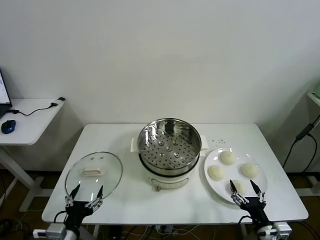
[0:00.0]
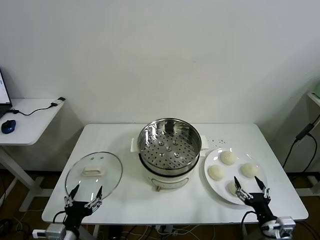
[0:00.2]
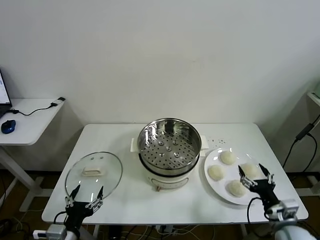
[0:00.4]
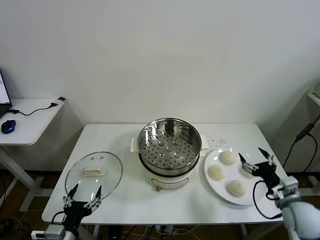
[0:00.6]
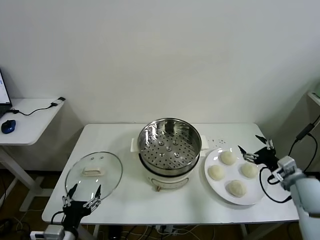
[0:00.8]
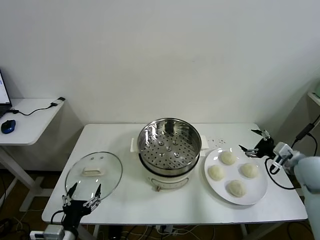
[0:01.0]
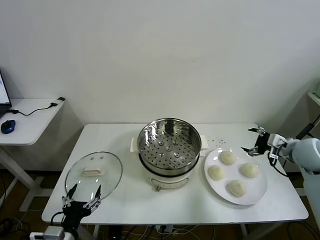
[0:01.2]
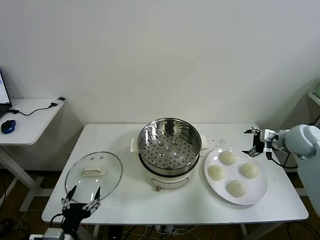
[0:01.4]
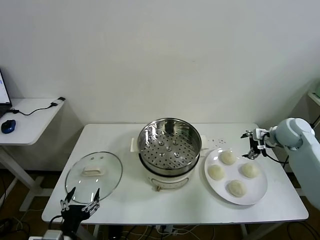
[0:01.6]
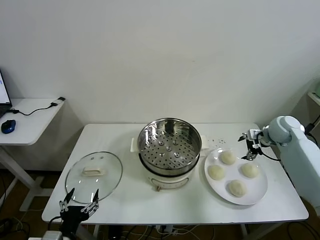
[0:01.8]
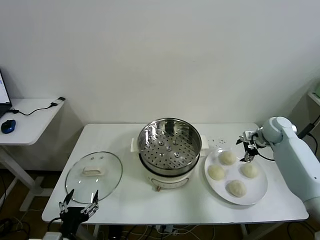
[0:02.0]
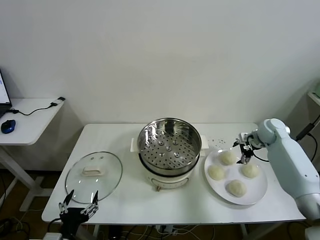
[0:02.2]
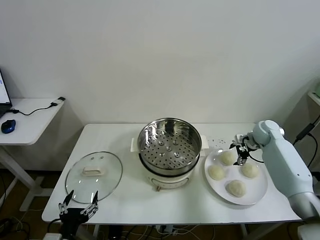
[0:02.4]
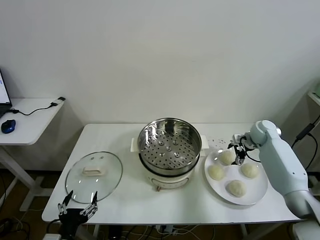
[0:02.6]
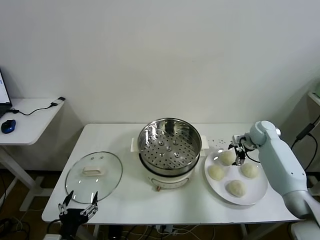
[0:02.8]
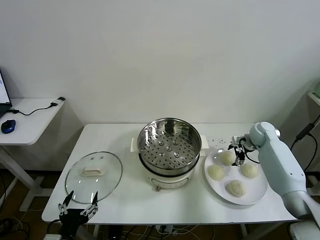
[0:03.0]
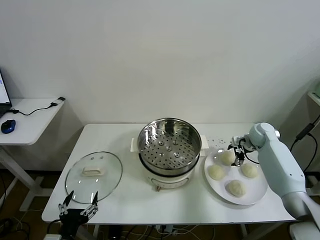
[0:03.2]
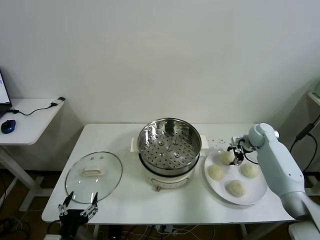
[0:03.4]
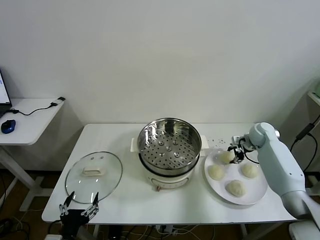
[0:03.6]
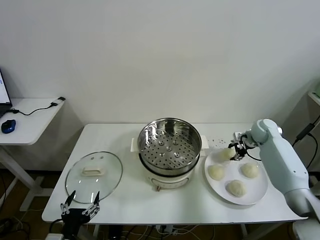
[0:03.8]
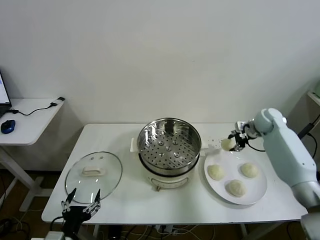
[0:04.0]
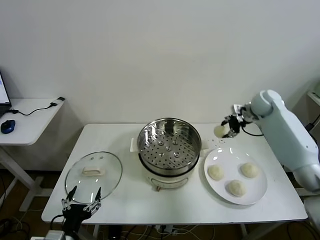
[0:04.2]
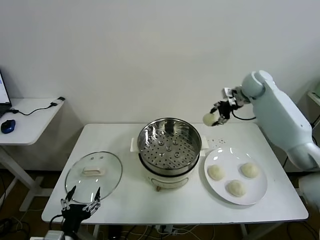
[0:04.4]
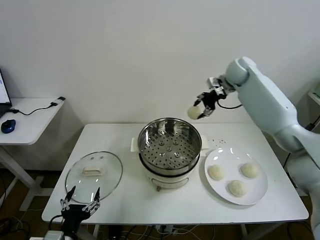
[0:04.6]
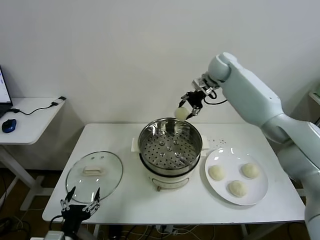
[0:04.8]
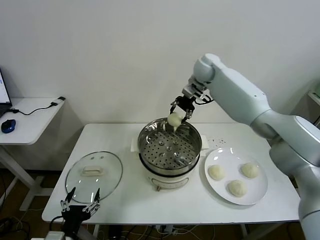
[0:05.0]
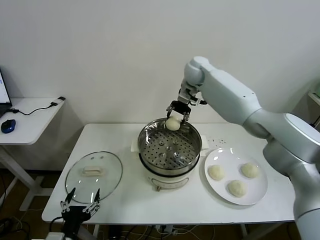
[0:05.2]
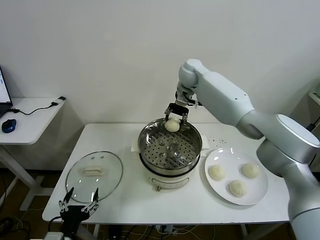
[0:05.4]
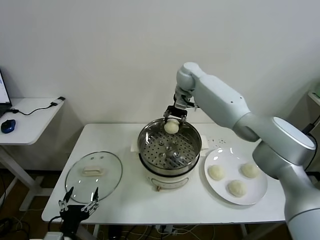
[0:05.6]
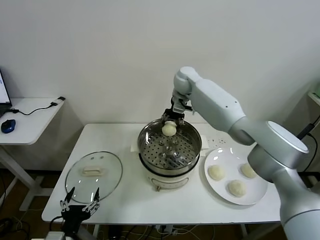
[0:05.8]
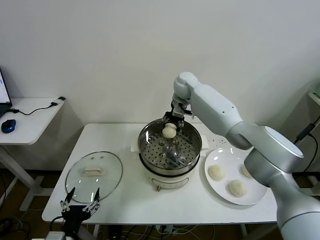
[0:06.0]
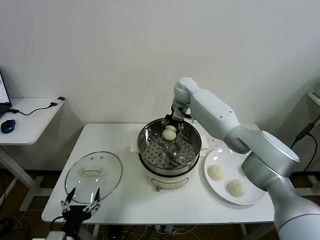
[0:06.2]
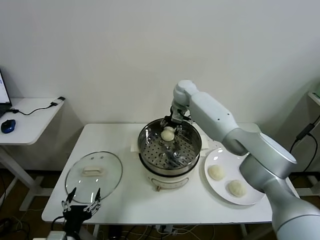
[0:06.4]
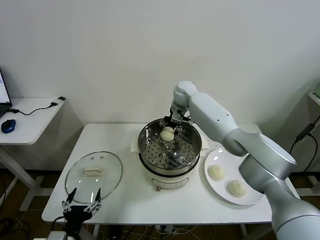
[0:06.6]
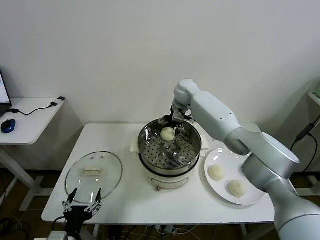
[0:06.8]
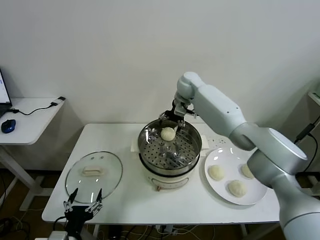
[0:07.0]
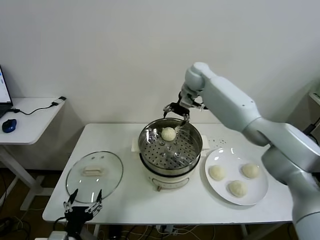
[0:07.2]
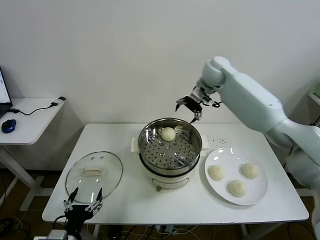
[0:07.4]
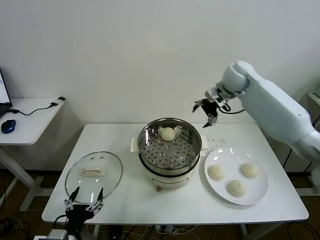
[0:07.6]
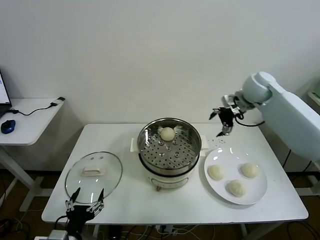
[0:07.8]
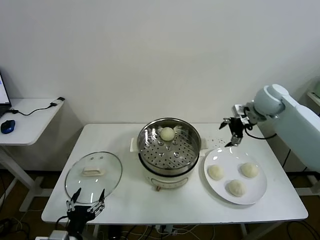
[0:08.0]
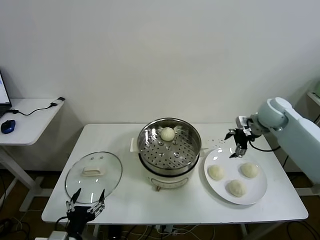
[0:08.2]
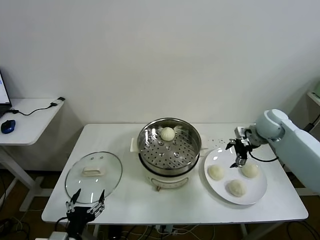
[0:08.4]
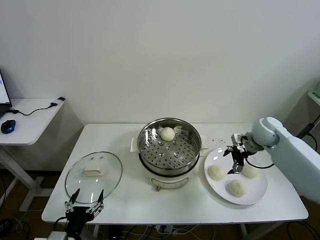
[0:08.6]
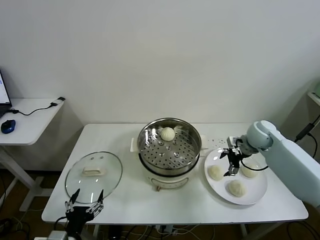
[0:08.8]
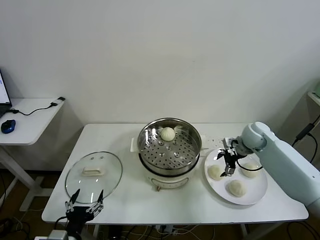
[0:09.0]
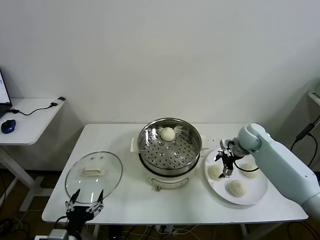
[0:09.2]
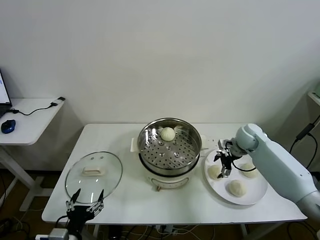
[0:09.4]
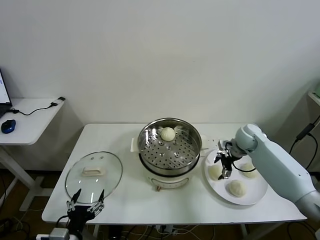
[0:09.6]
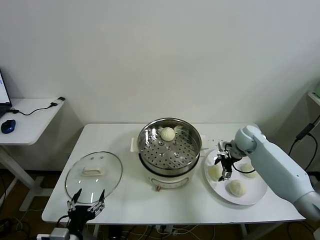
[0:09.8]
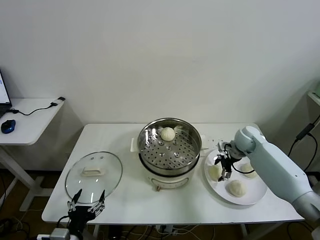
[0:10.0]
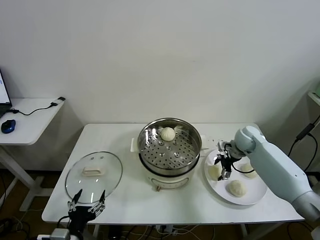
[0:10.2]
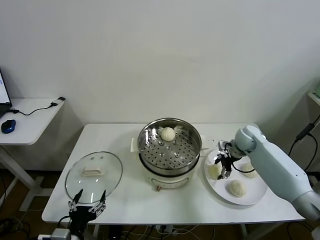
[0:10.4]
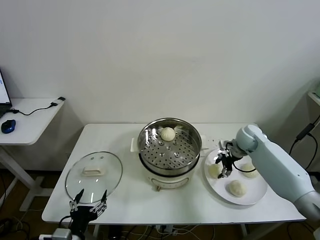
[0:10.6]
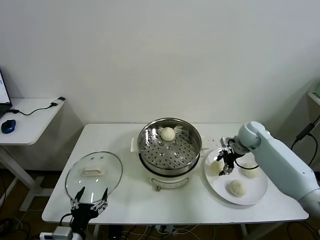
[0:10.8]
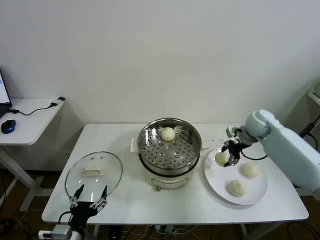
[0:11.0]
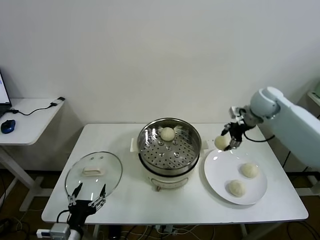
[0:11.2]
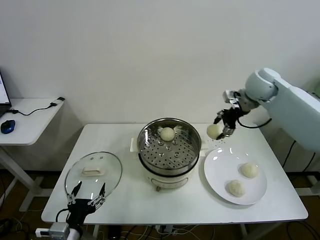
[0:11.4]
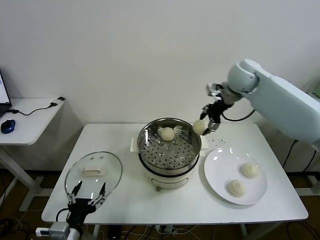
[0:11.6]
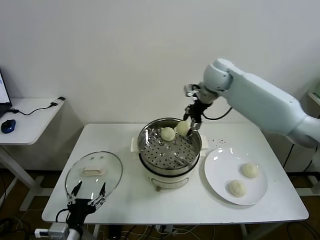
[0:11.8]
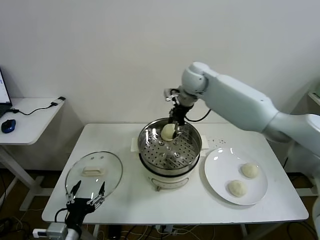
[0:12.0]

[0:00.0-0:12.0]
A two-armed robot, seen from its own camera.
Task of the whole recording: take steamed baozi put them in steamer then cover it.
Step, 0:00.0 to 0:03.4: Grasp the baozi in the plate with right gripper.
Step, 0:03.6 to 0:06.8: Place the baozi on the steamer with right gripper.
Step, 0:07.0 to 0:10.4: Grasp the baozi in the plate with right gripper.
0:01.6 to 0:03.0: The right gripper shifts roughly 10 cm downward and forward.
0:03.0 to 0:04.4: The right gripper travels upward and to the left by approximately 25 cm, and closes.
0:04.4 to 0:06.0: The right gripper shifts some 20 cm to the left.
0:06.0 to 0:07.6: The right gripper goes roughly 20 cm to the right, and opens its fingers.
0:07.6 to 0:09.0: The right gripper moves downward, approximately 20 cm.
0:09.0 to 0:10.4: The right gripper closes its fingers.
0:10.4 to 0:12.0: The right gripper heads to the left and upward, covering approximately 35 cm.

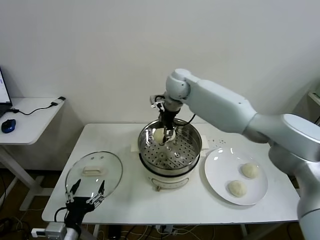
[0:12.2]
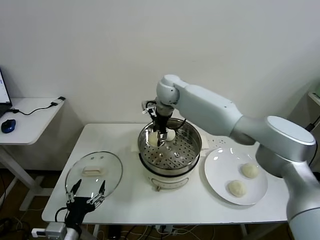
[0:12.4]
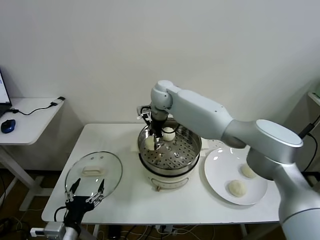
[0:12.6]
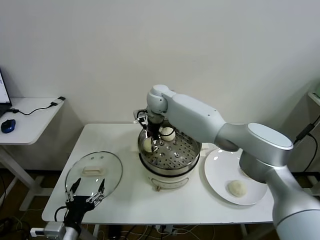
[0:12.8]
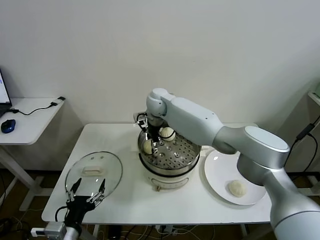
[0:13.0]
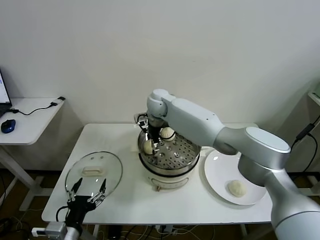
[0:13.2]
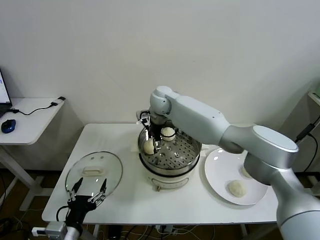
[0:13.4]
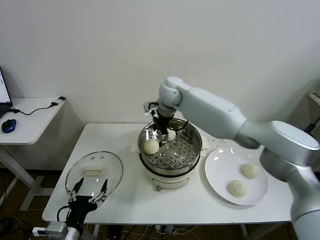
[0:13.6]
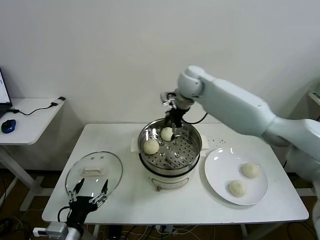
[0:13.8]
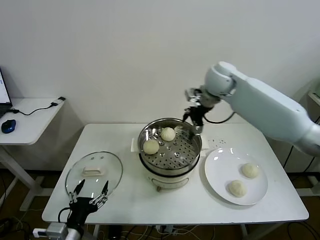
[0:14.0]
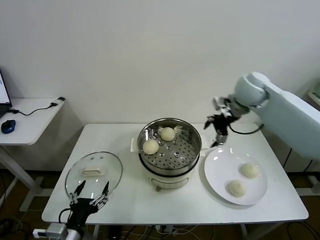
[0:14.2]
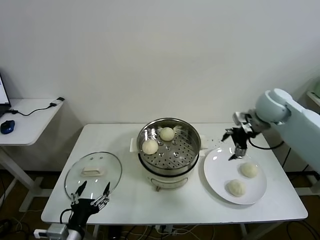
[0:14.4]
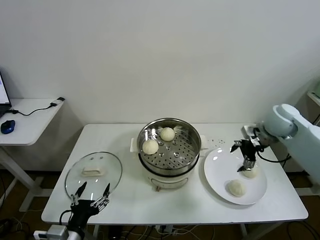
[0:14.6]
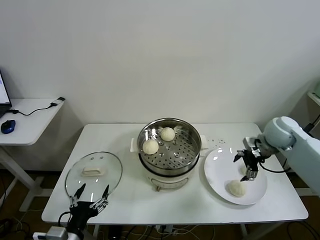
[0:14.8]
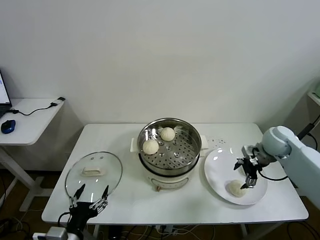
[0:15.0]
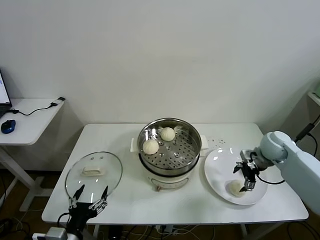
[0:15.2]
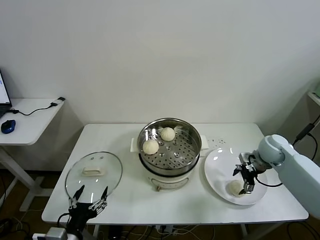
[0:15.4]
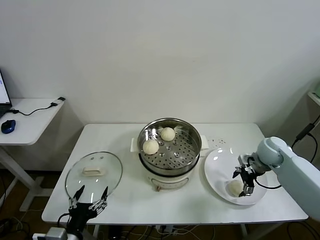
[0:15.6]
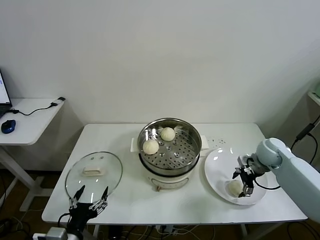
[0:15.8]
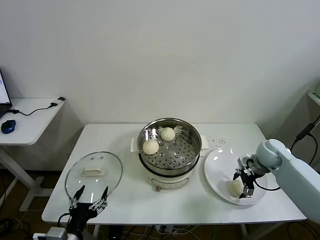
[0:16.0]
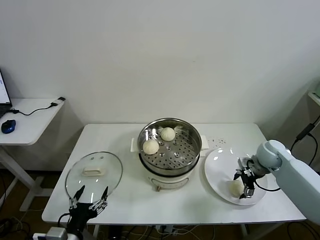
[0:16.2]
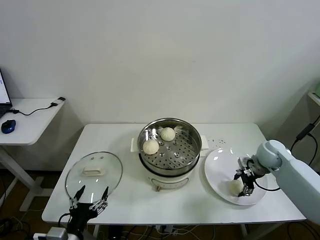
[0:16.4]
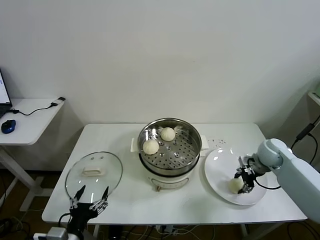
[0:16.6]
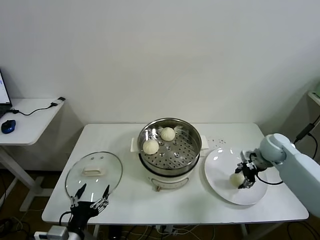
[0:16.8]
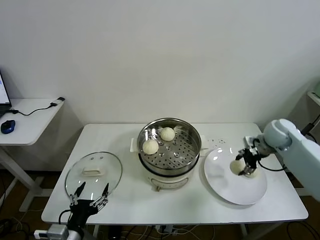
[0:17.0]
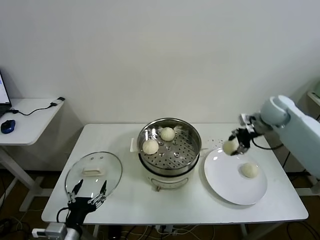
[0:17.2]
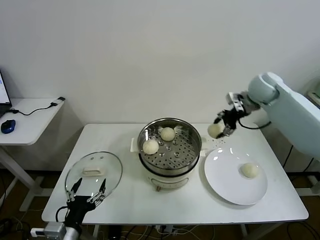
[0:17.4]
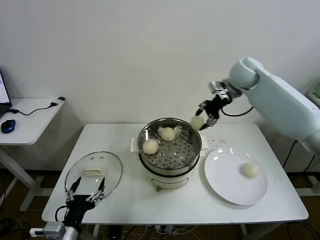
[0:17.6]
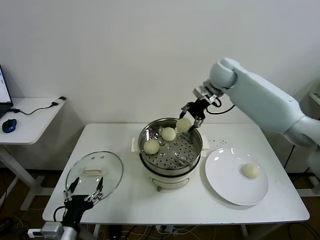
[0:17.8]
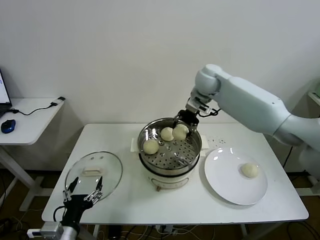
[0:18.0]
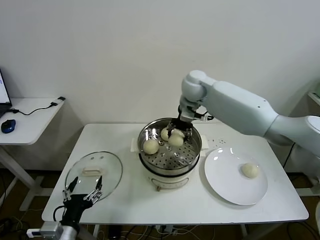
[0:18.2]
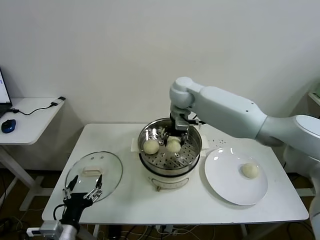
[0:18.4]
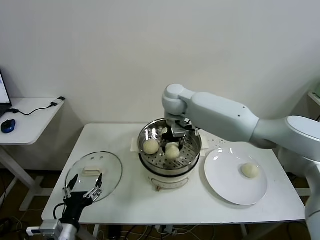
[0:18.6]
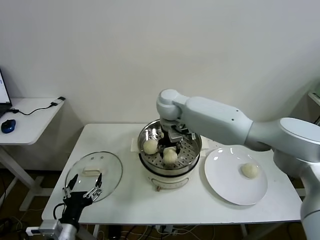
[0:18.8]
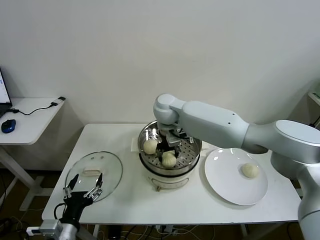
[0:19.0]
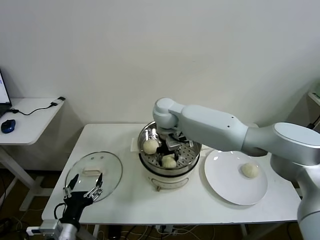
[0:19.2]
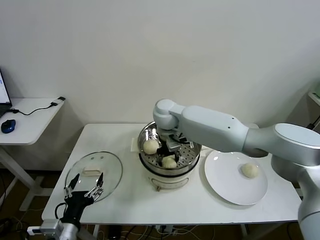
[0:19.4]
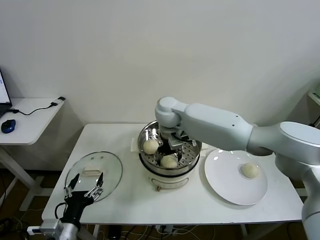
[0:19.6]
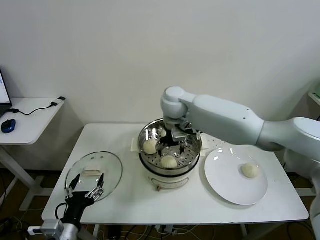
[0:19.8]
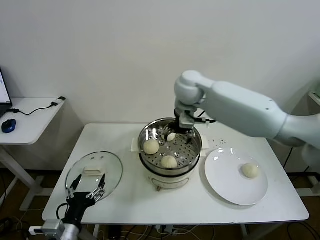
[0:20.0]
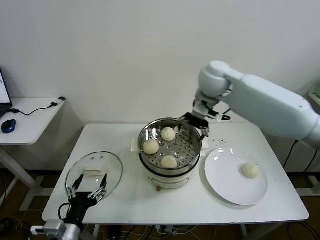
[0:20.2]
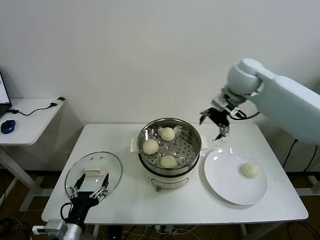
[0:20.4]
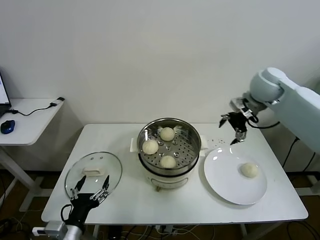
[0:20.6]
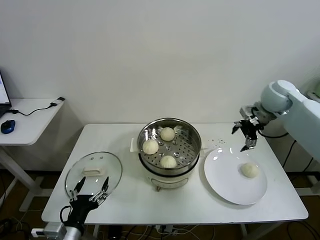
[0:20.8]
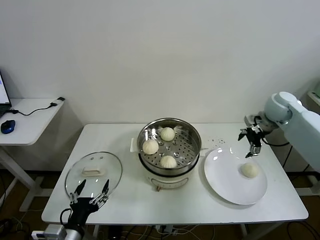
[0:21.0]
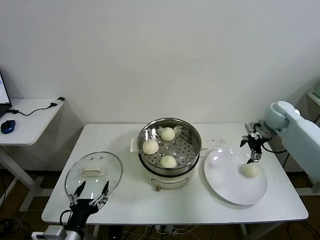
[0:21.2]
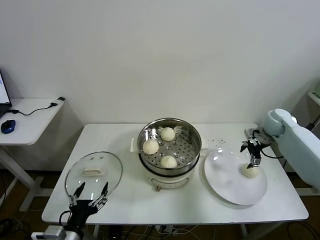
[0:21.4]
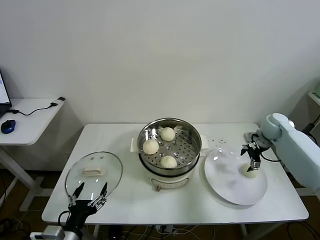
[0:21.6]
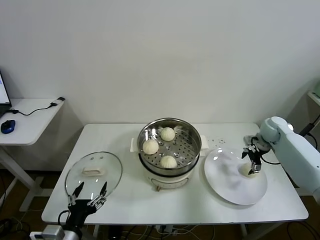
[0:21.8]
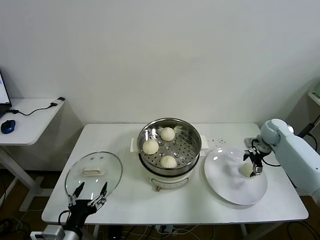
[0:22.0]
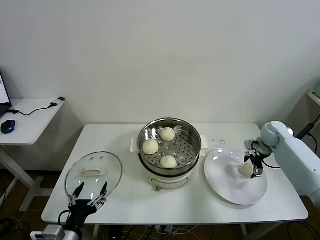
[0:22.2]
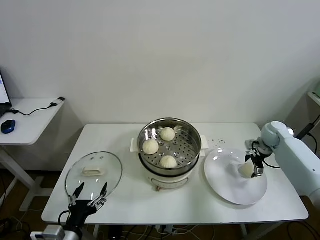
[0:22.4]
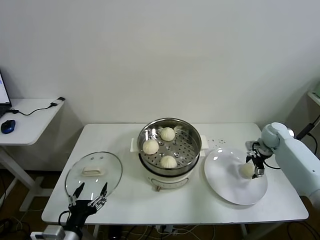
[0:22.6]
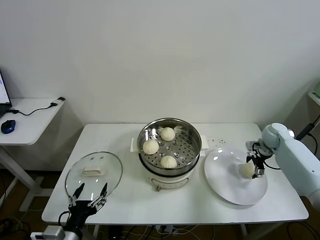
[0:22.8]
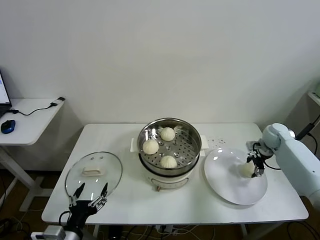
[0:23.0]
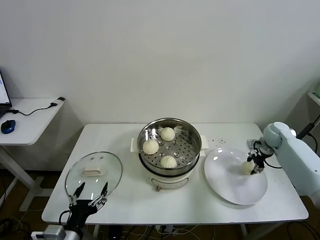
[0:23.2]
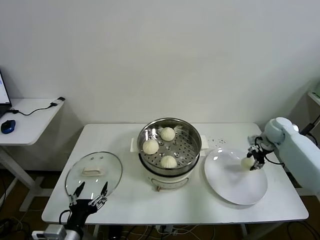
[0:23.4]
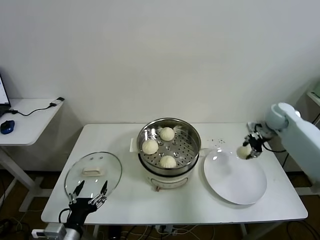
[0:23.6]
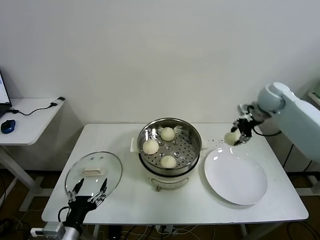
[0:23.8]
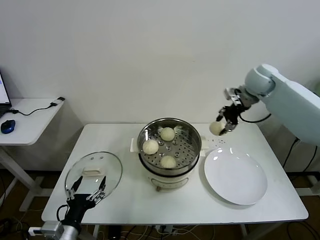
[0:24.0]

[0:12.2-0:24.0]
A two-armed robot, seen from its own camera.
Task of the whole recording: take steamed baozi put them in steamer then cover it.
Step, 0:13.4 to 0:16.4: Grasp the baozi in the plate with right gripper.
Step, 0:16.6 to 0:19.6: Place the baozi on the steamer with right gripper.
Step, 0:19.8 to 0:23.0: Grasp the baozi in the plate with right gripper.
0:12.2 to 0:13.6: The right gripper opens.
0:13.6 to 0:15.2: The right gripper is displaced to the right and downward by roughly 40 cm.
0:15.2 to 0:16.6: The right gripper closes.
0:16.6 to 0:18.2: The right gripper heads to the left, upward and forward, covering approximately 40 cm.
0:18.2 to 0:19.6: The right gripper moves to the left, downward and backward, about 10 cm, and opens its fingers.
0:19.6 to 0:21.0: The right gripper moves to the right, about 40 cm.
0:21.0 to 0:22.6: The right gripper heads downward, covering approximately 15 cm.
0:22.6 to 0:24.0: The right gripper moves upward and to the left, about 25 cm, and closes its fingers.
